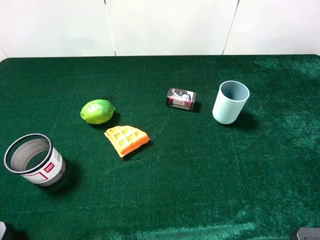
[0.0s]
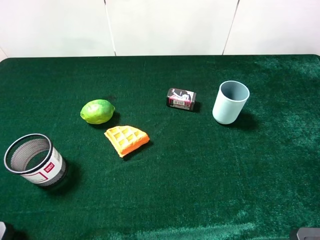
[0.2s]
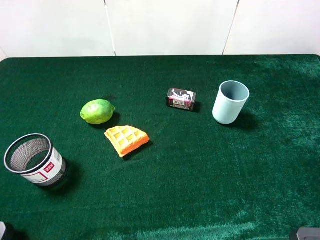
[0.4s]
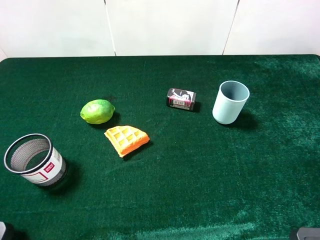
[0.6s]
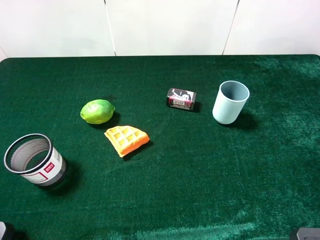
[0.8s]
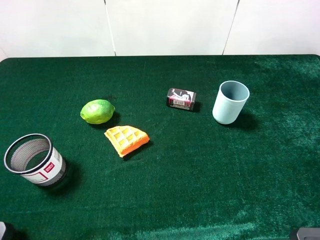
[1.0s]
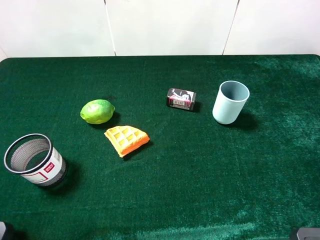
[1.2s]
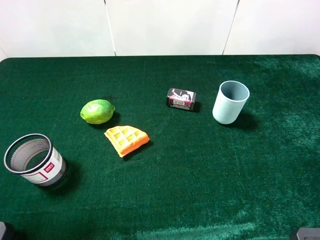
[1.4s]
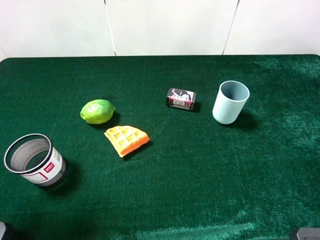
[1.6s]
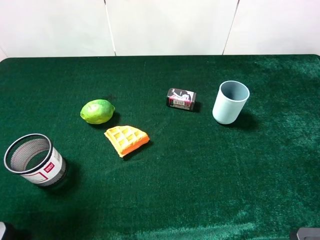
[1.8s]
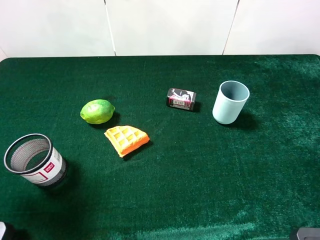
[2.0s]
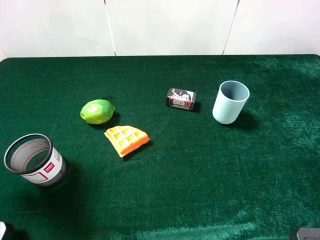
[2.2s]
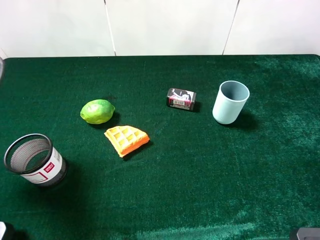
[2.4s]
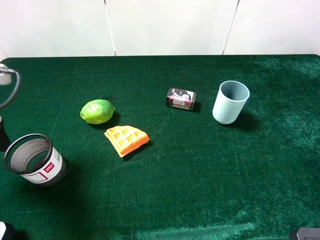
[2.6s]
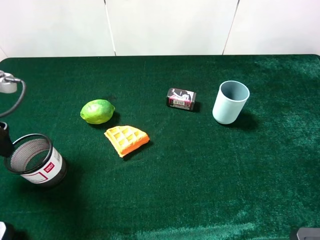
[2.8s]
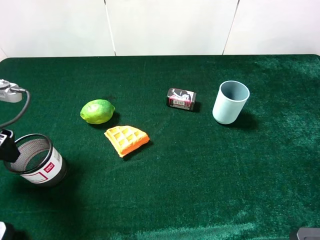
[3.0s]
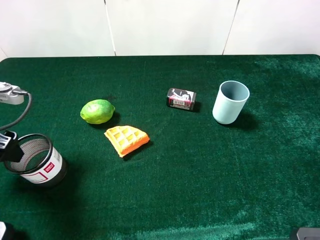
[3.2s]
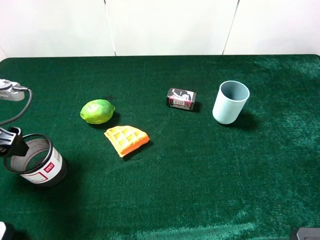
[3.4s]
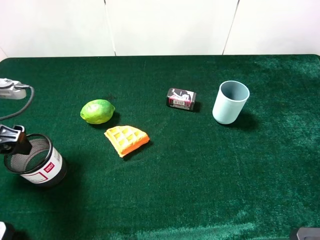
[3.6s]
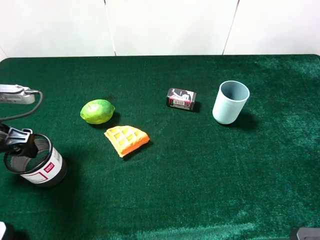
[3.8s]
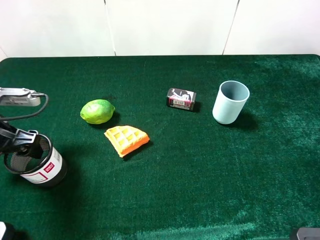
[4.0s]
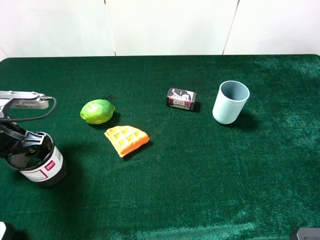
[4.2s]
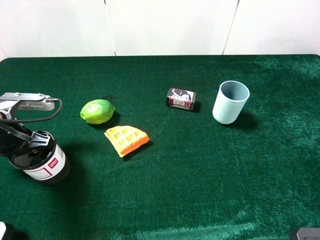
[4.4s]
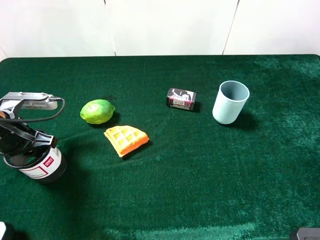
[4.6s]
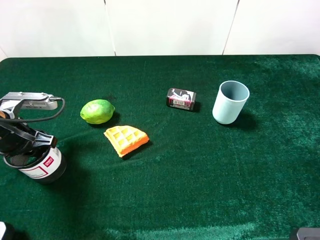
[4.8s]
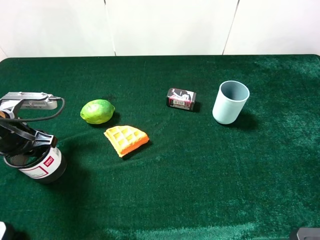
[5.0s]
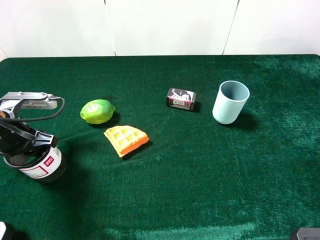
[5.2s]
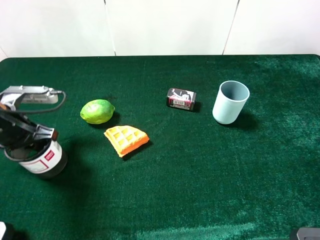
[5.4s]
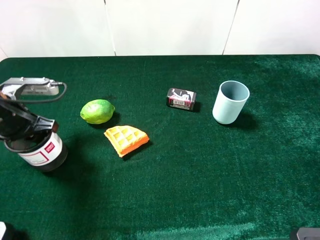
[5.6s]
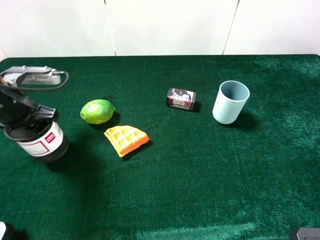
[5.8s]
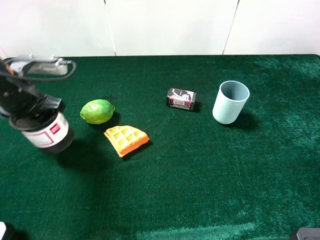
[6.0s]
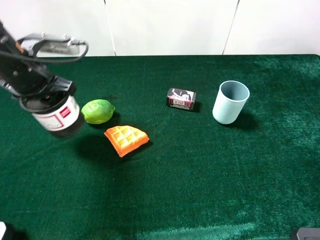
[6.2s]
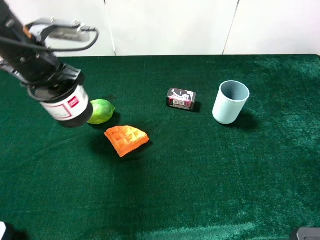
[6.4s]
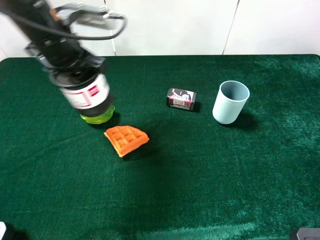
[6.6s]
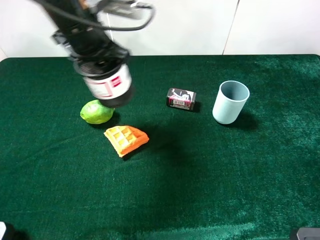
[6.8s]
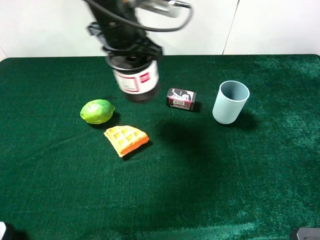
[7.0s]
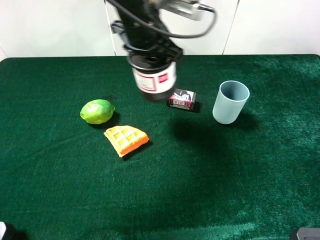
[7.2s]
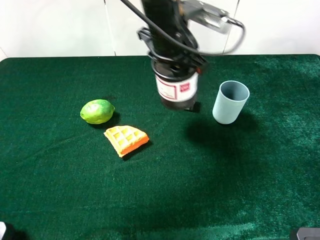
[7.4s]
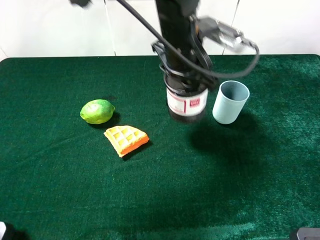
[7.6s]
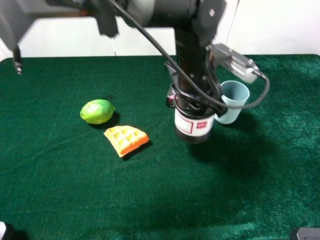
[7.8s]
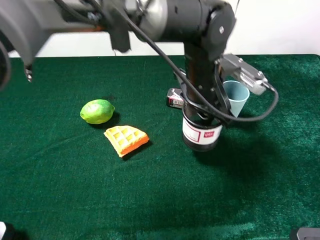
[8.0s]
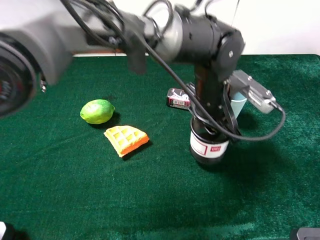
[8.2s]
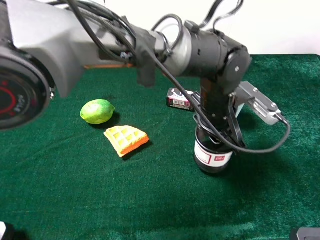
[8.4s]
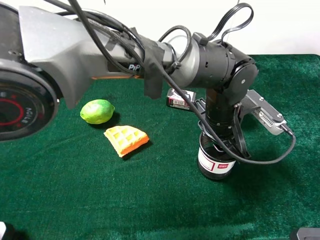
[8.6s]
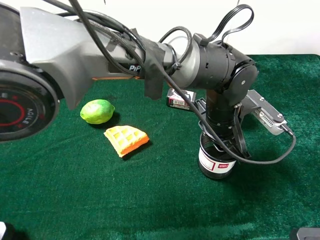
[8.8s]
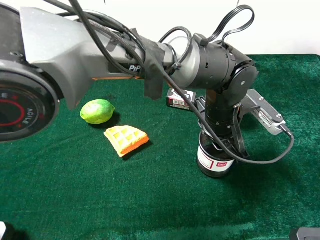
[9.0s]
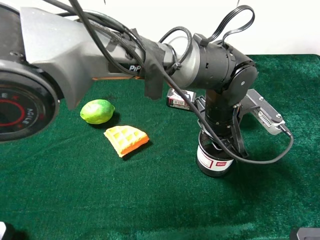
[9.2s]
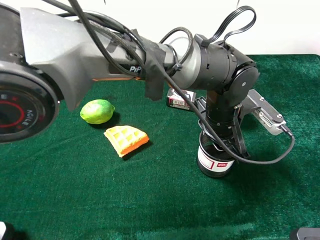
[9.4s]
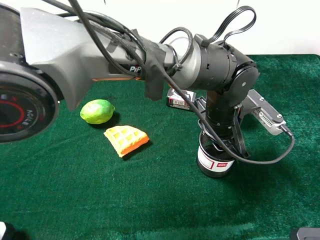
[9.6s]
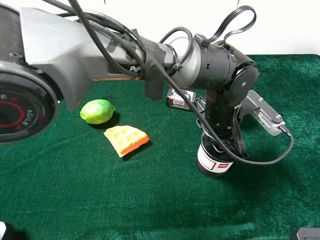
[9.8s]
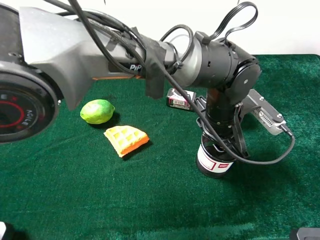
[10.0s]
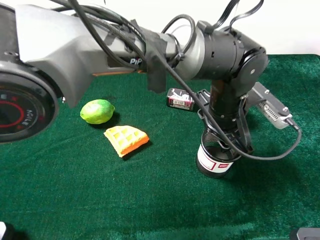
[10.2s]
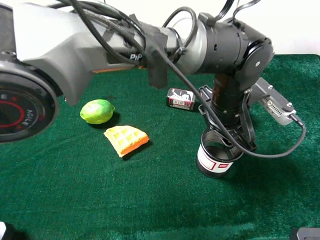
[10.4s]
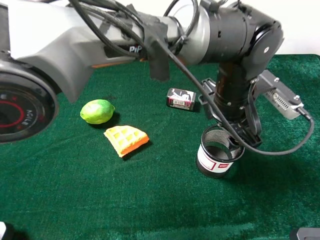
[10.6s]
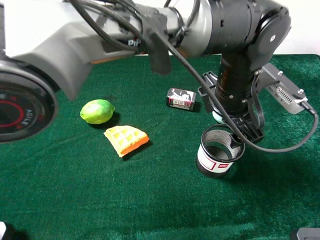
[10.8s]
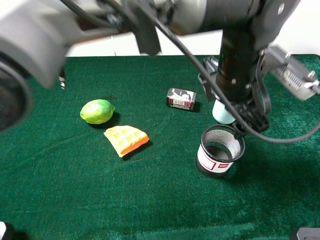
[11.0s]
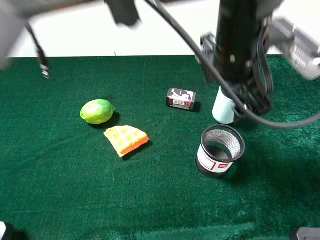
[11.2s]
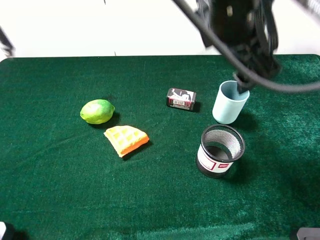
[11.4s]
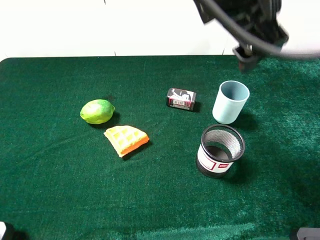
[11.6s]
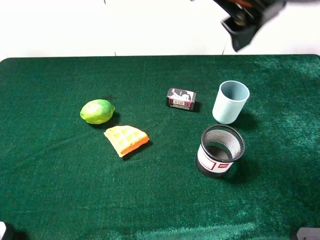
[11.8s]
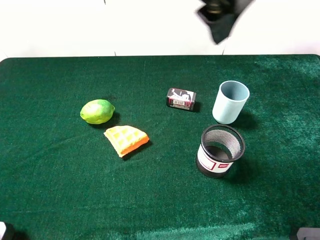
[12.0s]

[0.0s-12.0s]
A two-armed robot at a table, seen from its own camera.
Task of the whole recording: the gripper move the object.
Step, 0.0s to 4.6s: Grasp the pen container with the left gripper.
Step, 4.8s to 10.0s: Place the pen containeron the table with the left gripper.
0.0s to 1.6s: The left gripper is displaced forward by some 10 cm.
1.6s to 3.0s: The left gripper moves downward and forward, some 15 cm.
3.0s to 4.4s: The left gripper travels downward by roughly 5 cm.
4.4s to 6.0s: The left gripper goes roughly 10 cm upward and forward, and closes its fingers.
6.0s to 7.6s: The left gripper heads to the right, covering some 30 cm.
7.6s to 9.0s: The left gripper goes approximately 15 cm downward, to the right and backward.
9.0s to 10.4s: The left gripper opens.
10.4s to 12.0s: The left gripper shifts roughly 30 cm upward and to the left, and opens.

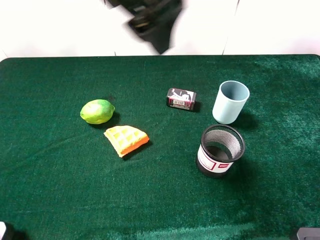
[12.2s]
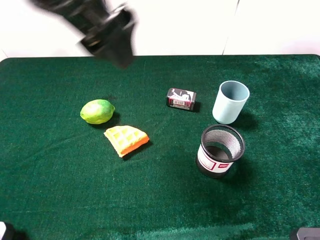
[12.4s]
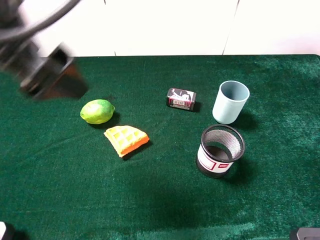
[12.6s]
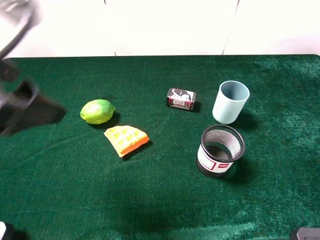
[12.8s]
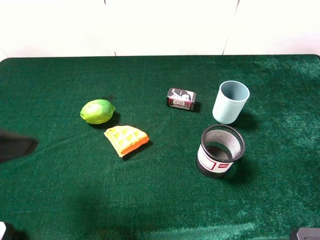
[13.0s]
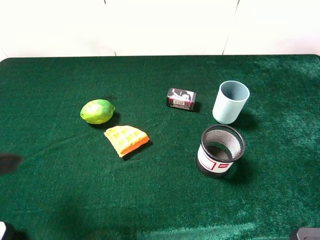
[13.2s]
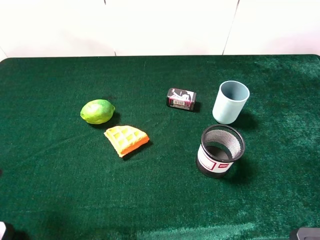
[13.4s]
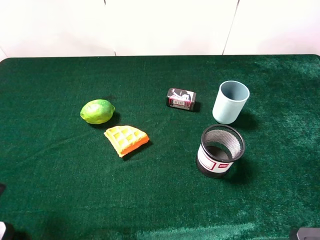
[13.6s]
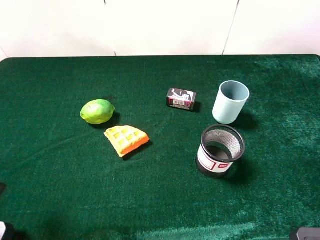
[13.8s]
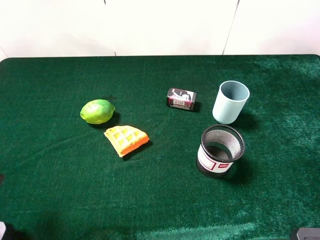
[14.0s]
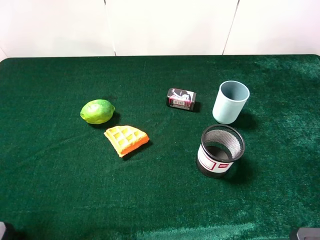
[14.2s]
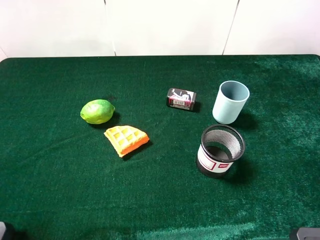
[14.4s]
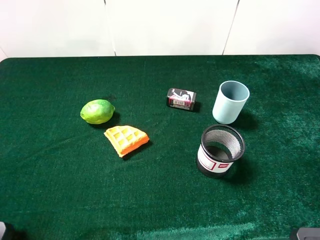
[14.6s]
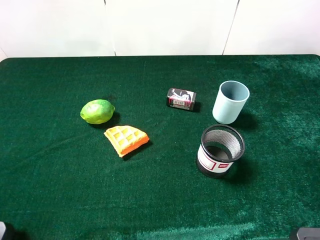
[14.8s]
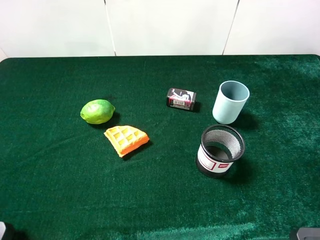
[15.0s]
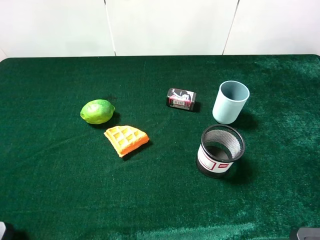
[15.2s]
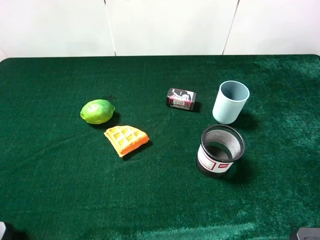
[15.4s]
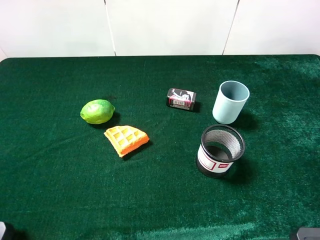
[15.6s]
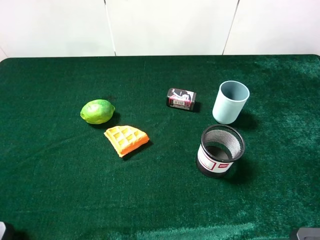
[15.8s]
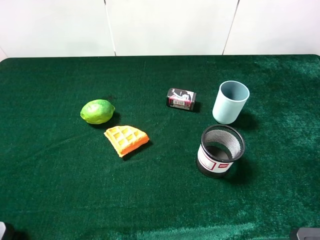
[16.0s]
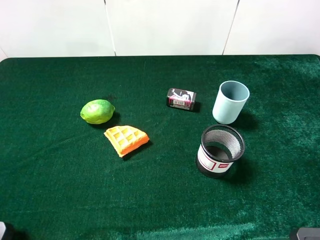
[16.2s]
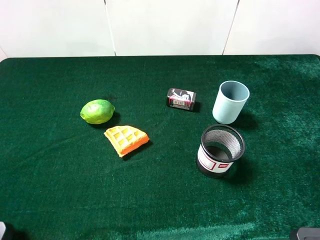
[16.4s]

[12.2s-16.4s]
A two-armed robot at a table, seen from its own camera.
Task of the whole recording: the gripper move the object.
12.2s to 13.6s: The left gripper is displaced to the left, backward and downward by some 30 cm.
15.0s to 16.4s: Both grippers stay about where they are.
